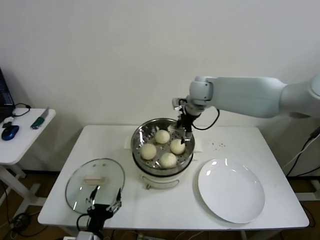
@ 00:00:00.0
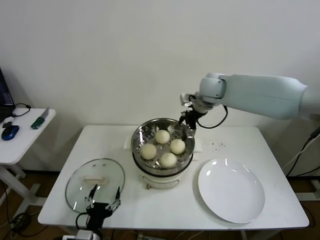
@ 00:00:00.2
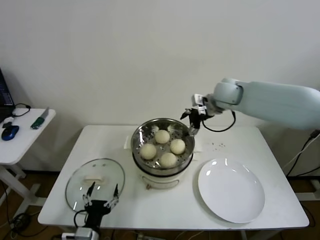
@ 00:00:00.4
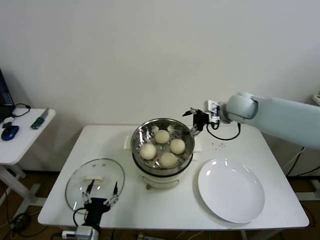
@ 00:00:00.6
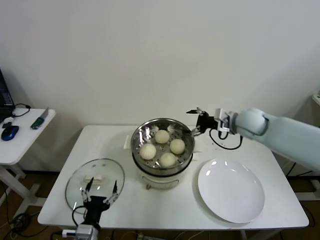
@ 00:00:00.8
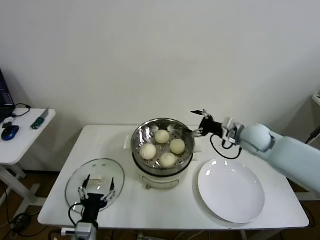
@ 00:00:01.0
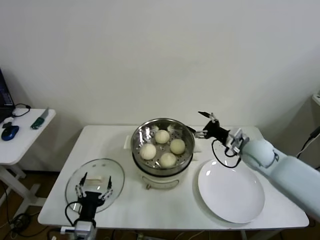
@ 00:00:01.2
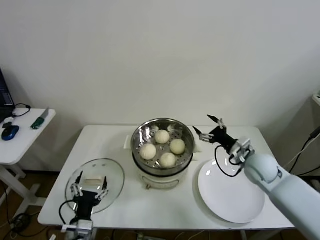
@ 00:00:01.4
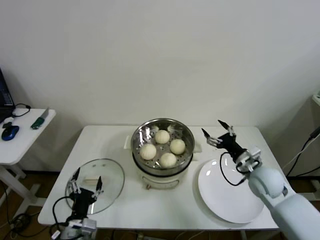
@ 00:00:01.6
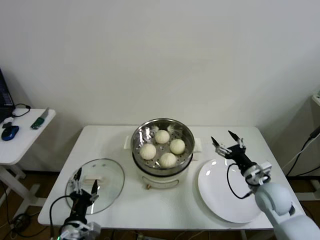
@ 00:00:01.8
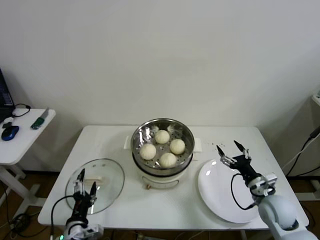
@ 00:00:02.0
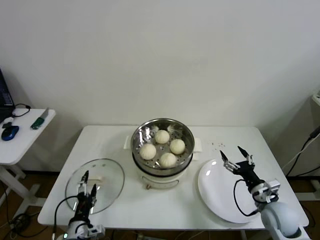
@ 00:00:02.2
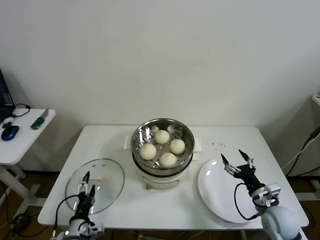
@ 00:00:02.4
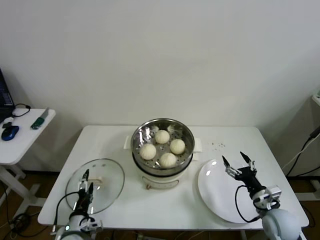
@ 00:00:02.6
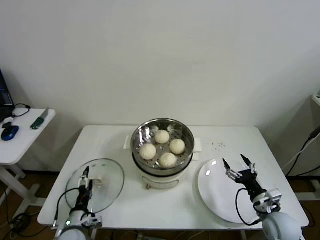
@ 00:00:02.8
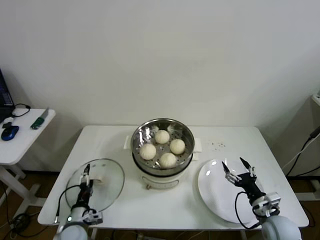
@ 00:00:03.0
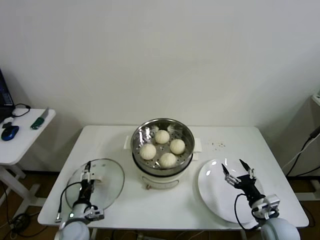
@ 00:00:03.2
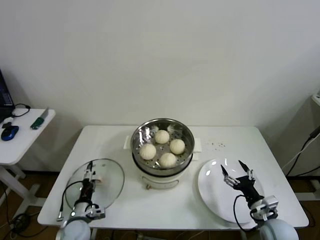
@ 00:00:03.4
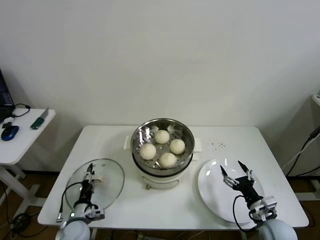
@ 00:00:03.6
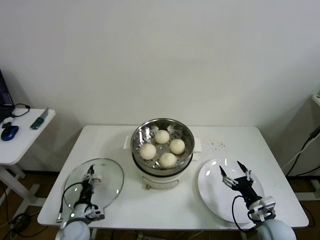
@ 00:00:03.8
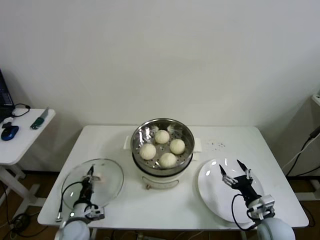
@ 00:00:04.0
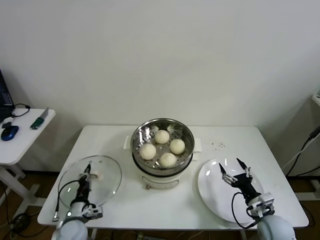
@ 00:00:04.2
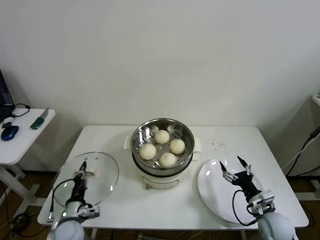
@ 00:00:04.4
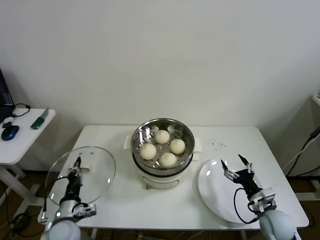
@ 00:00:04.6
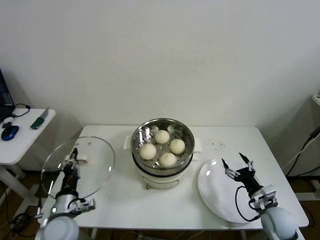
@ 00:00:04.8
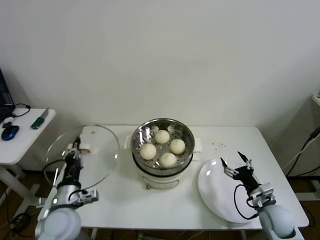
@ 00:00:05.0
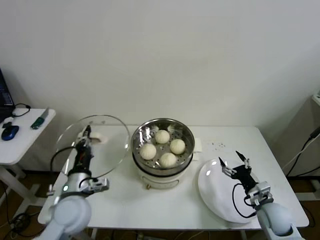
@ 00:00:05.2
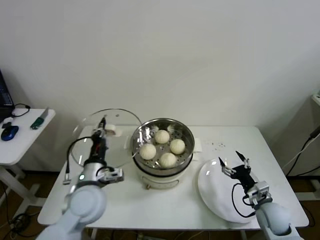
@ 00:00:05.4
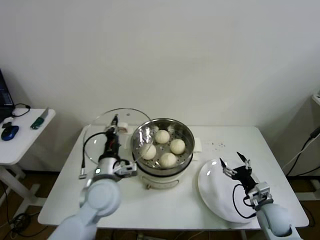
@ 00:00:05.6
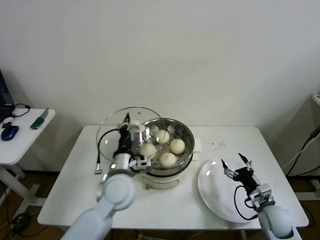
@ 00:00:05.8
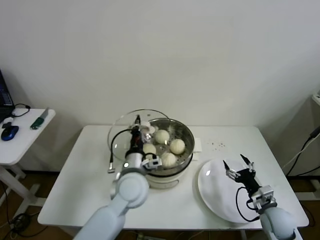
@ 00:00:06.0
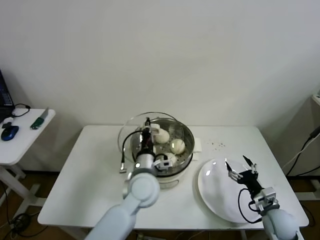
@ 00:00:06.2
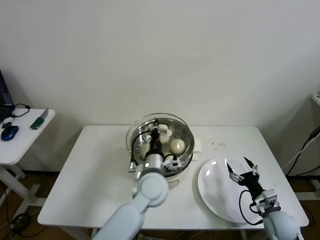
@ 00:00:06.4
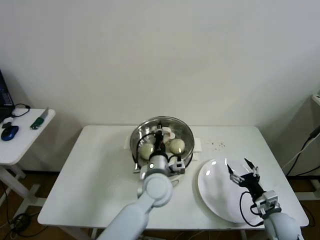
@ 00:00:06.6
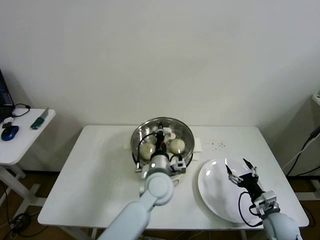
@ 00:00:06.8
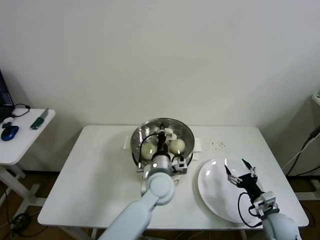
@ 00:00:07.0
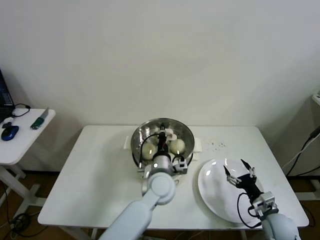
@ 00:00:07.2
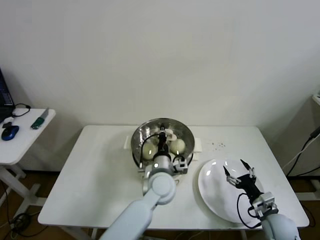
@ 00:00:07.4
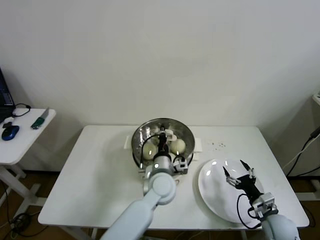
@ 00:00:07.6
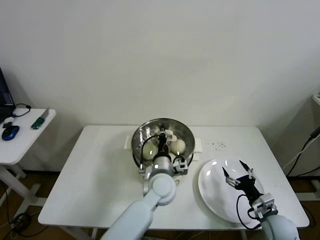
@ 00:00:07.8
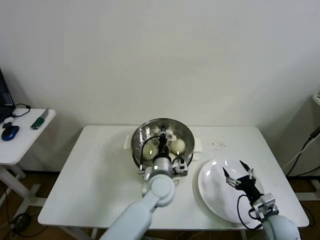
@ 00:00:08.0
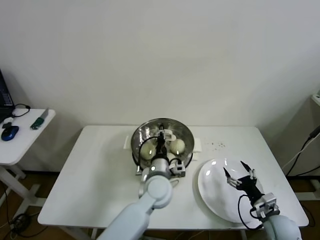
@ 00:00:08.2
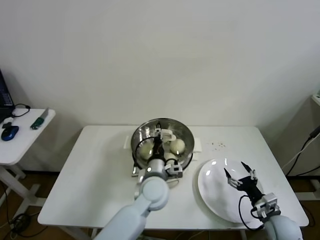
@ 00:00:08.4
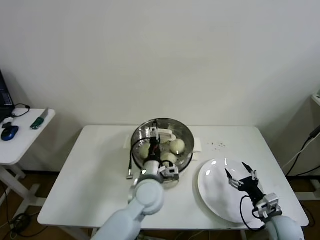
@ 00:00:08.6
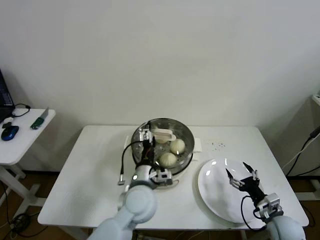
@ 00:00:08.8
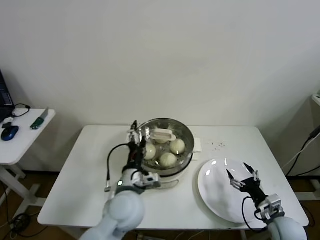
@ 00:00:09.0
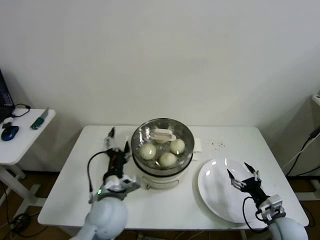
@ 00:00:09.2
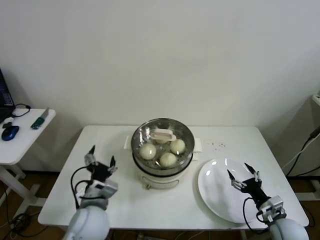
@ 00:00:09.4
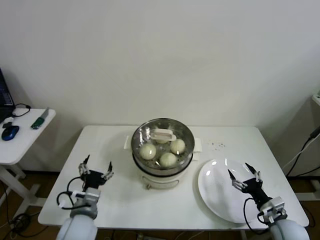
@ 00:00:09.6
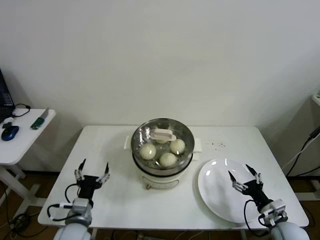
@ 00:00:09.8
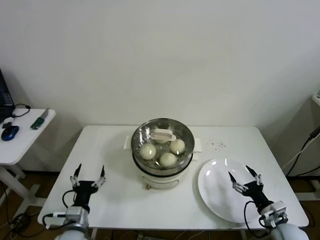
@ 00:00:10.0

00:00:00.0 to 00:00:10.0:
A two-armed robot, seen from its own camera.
Step, 00:00:00.0 to 00:00:04.0: Grasp the pot lid with left gripper.
Step, 00:00:04.2 to 00:00:08.0: Place the pot lid on the steamer with left gripper.
00:00:00.0 to 00:00:01.4: The right gripper is displaced to the right, backward and downward by approximately 30 cm.
00:00:01.4 to 00:00:02.8: The left gripper is displaced downward, to the left and forward by some 10 cm; the right gripper goes roughly 20 cm backward and downward.
00:00:02.8 to 00:00:04.2: The left gripper closes its fingers.
00:00:04.2 to 00:00:05.8: The left gripper shifts approximately 25 cm upward and to the right.
00:00:05.8 to 00:00:07.2: The left gripper shifts approximately 15 cm to the right and downward.
00:00:07.2 to 00:00:08.6: The left gripper opens up.
00:00:08.6 to 00:00:10.0: The left gripper goes some 25 cm to the left and backward.
